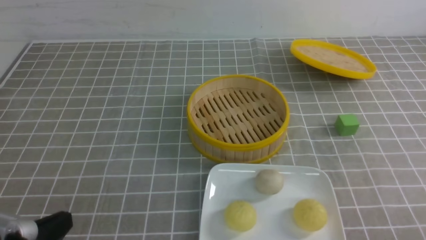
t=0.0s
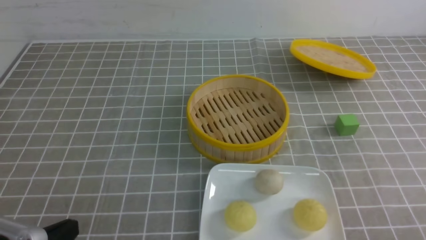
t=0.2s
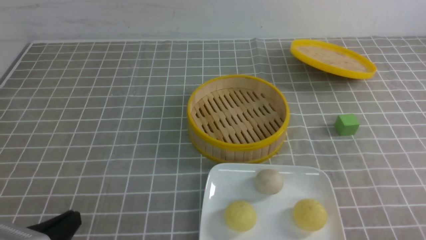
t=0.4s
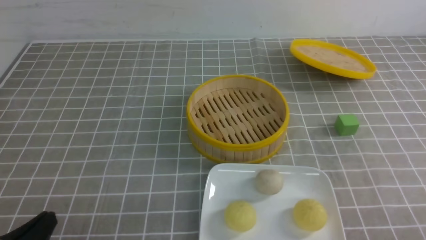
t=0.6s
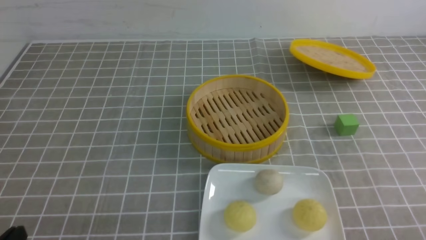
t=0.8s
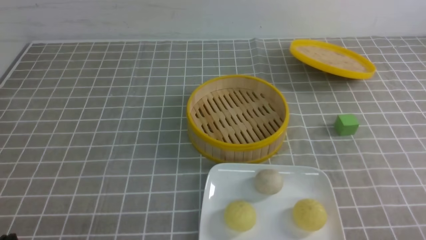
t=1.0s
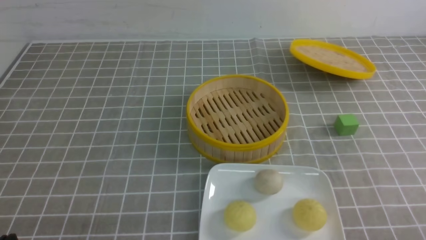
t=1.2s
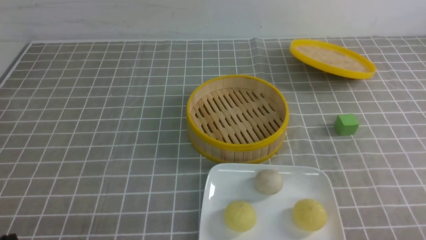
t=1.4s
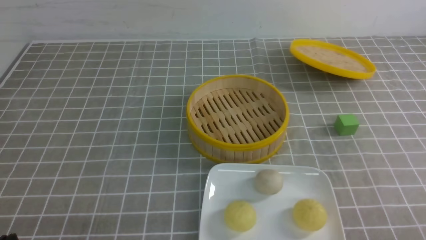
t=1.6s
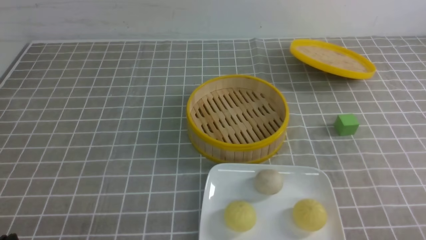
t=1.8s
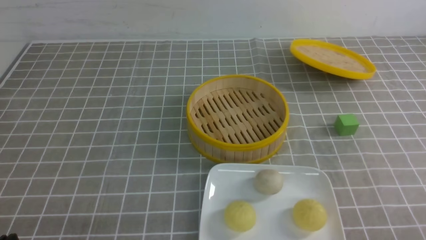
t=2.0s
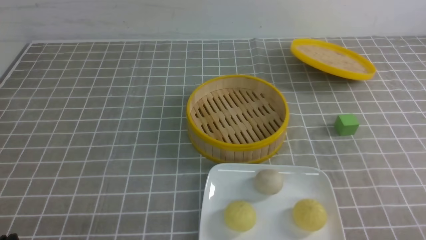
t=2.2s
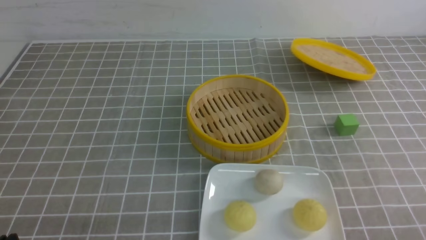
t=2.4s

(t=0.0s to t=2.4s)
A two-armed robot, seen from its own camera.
t=0.0s - t=1.2s: The left gripper goes about 5 cm downward.
t=1.2s - t=2.4s: The two grippers keep their place.

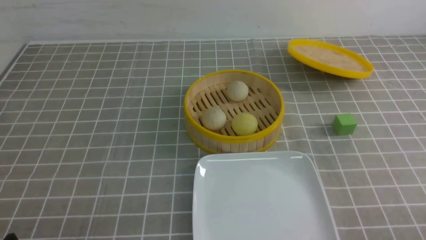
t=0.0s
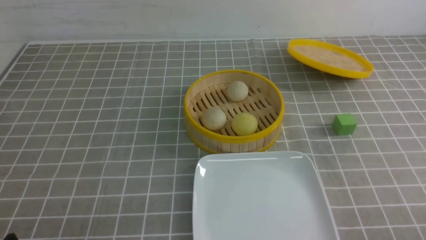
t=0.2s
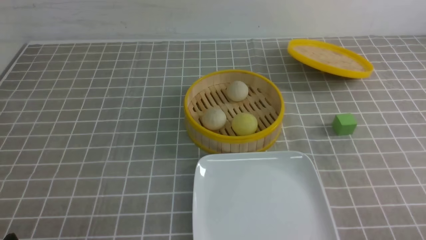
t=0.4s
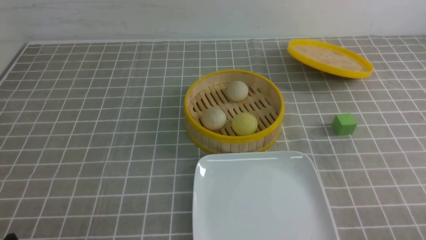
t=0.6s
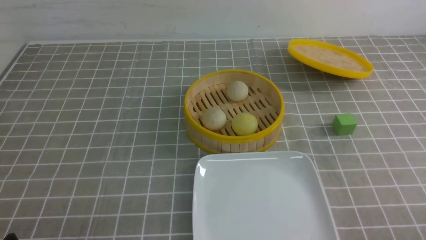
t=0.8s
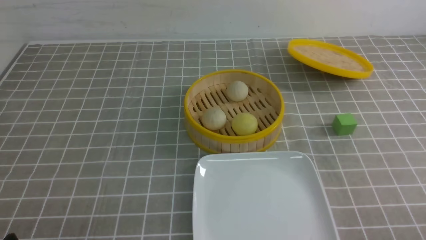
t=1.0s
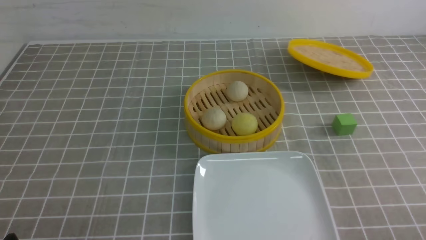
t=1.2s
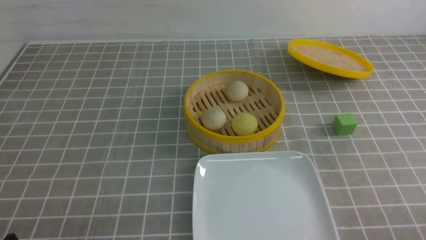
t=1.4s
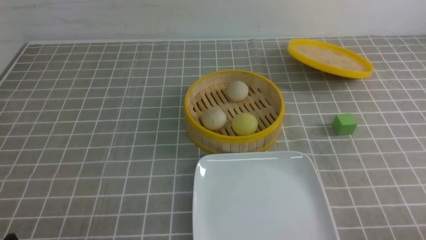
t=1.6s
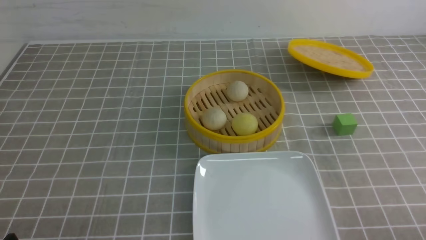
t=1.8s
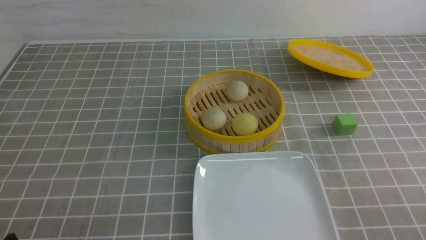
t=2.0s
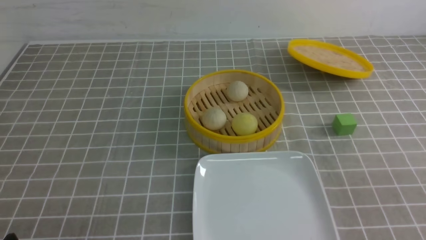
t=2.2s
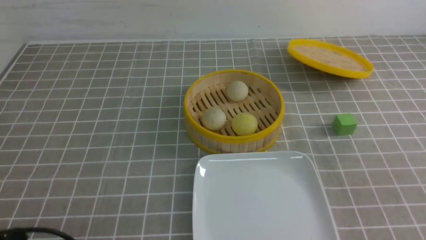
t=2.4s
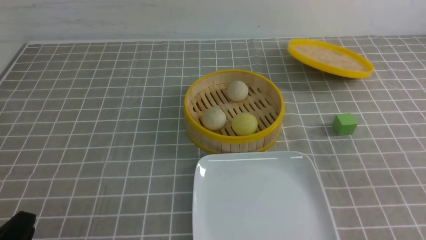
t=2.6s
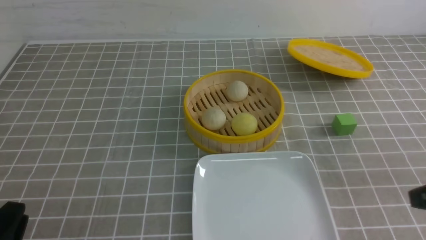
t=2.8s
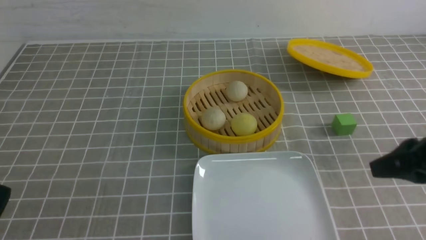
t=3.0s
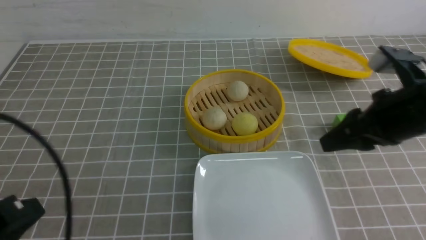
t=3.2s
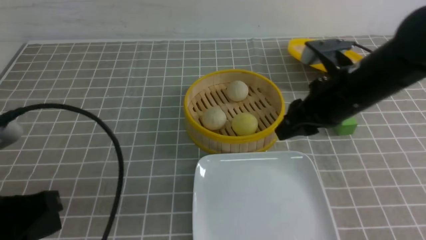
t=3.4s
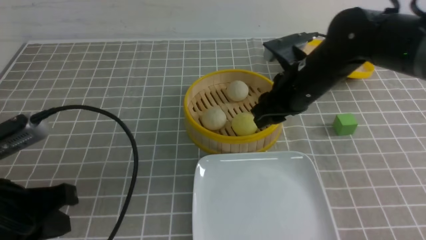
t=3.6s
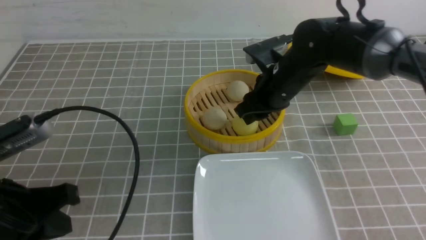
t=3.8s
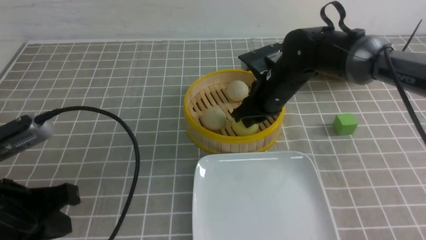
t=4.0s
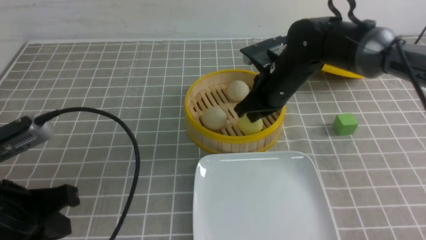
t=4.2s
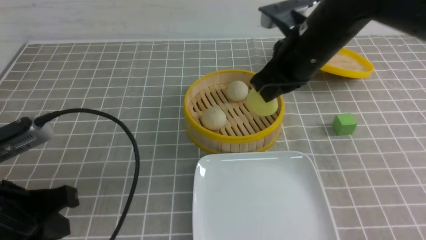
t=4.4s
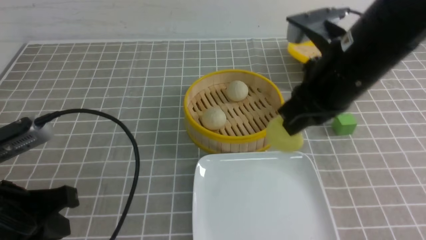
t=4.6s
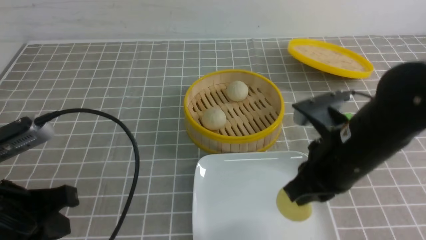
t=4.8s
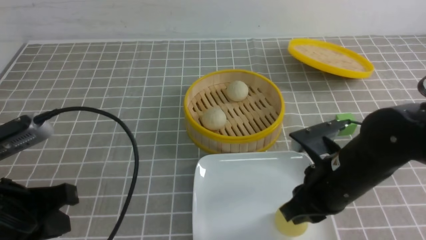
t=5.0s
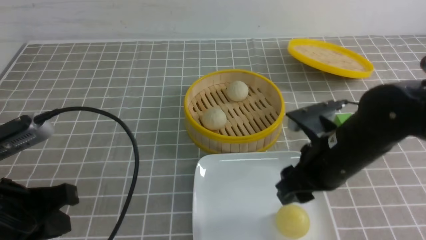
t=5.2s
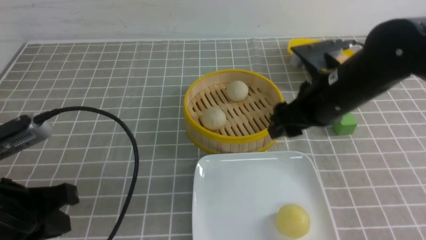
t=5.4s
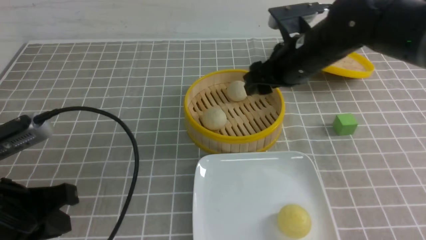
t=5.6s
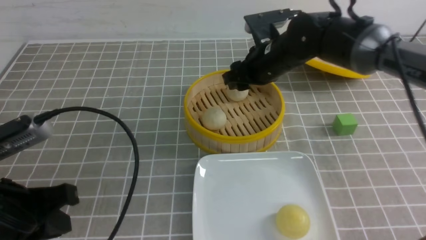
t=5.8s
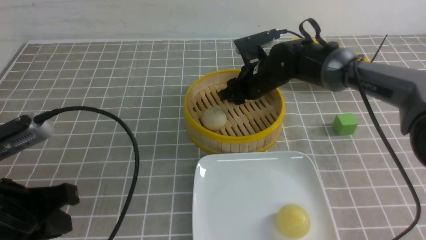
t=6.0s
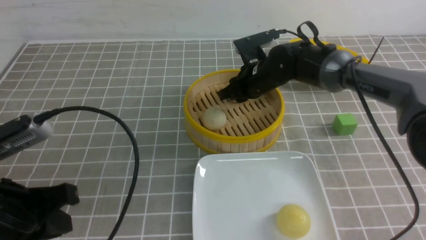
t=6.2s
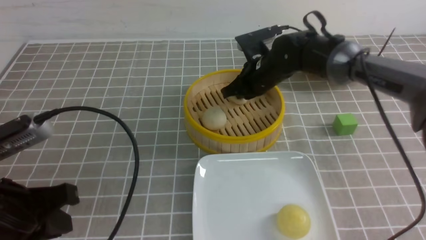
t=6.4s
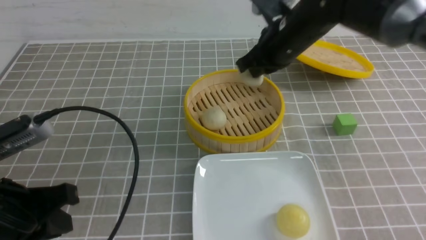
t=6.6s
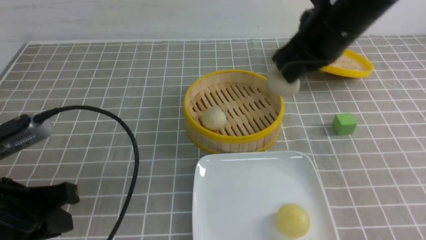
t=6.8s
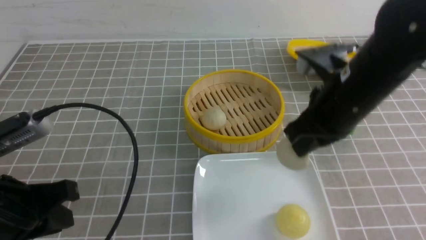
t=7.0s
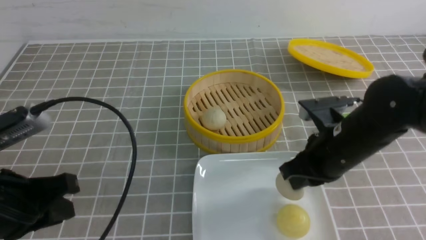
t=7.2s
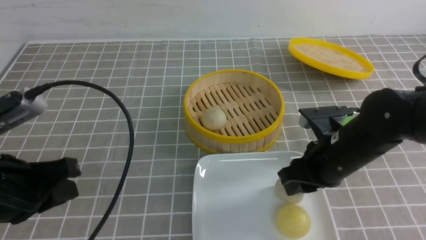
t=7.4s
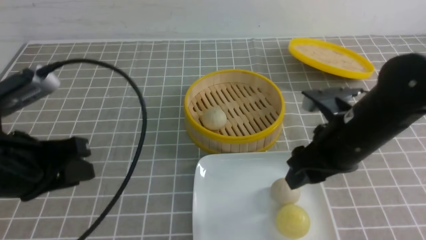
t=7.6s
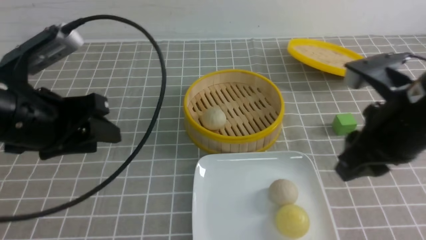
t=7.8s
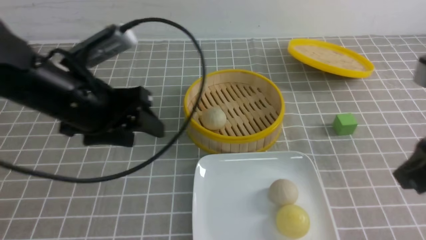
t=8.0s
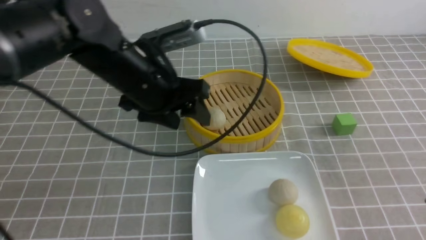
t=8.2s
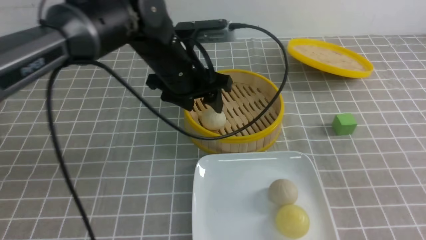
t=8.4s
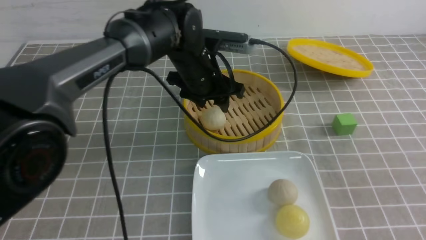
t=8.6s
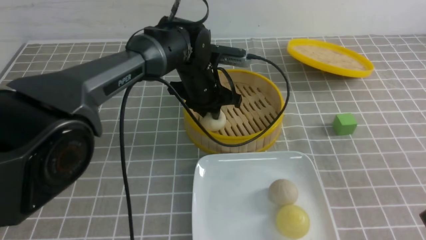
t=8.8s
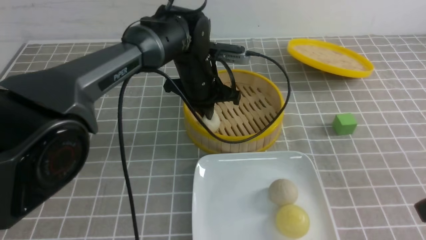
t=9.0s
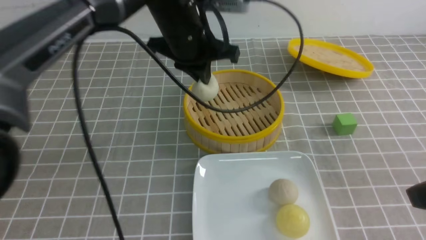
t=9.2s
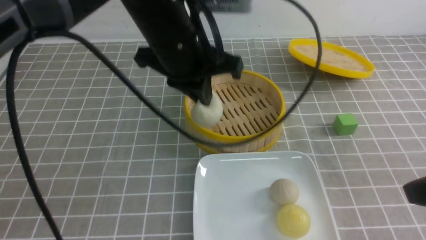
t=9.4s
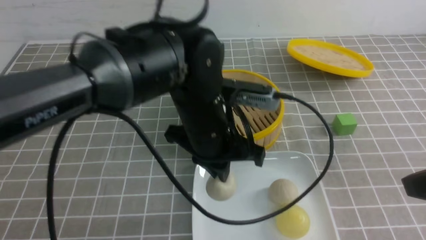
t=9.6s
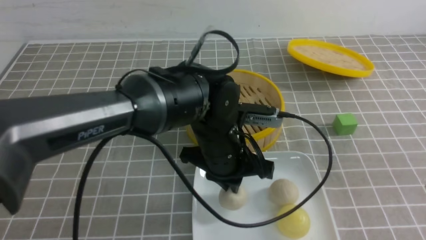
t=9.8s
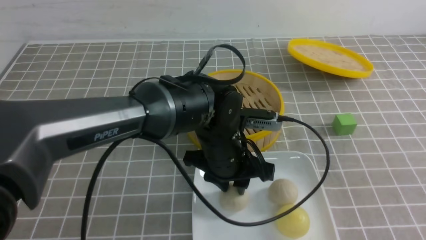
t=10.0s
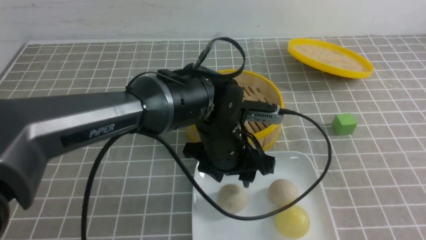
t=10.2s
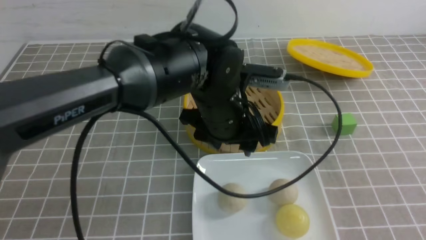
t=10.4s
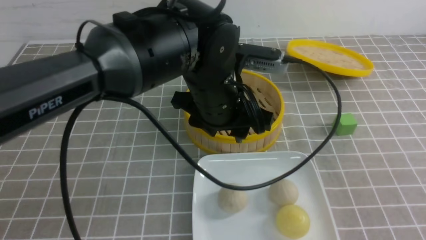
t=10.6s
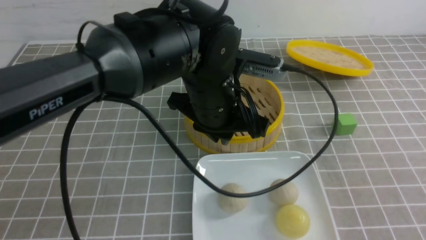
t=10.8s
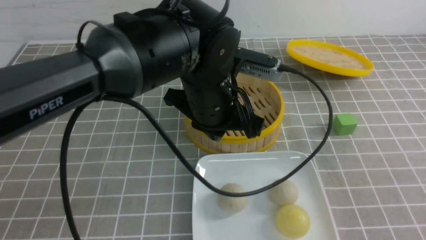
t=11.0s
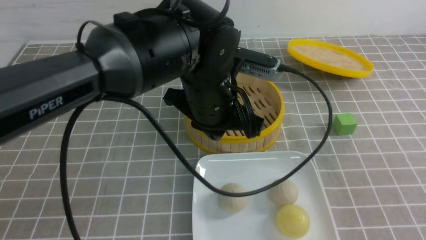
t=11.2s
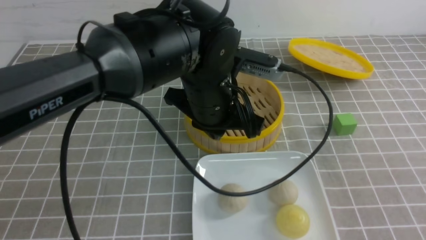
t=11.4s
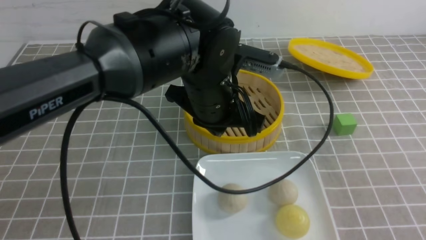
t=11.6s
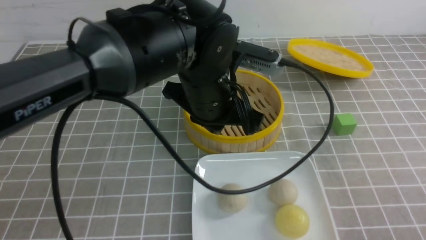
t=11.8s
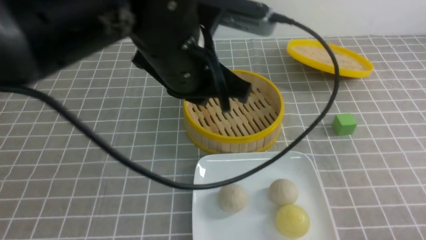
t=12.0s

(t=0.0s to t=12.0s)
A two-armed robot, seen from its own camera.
Step, t=0.0s - t=4.2s: use the right arm to grab the steamed stuffed bun that is closest to it.
Step, t=4.4s - t=5.0s: use the right arm to put the steamed stuffed bun into the plate.
Step, t=5.2s - t=6.4s: use the right arm to grab the steamed stuffed bun that is closest to it.
Step, t=6.6s - t=7.4s: use the right arm to put the steamed stuffed bun into the plate.
Step, t=7.6s - t=9.0s: use the left arm to grab the steamed stuffed bun that is closest to it.
Step, t=9.2s - t=10.0s: use the left arm to put the steamed stuffed bun into the plate.
t=1.6s - t=3.0s: The right gripper is displaced forward and upward by approximately 20 cm, and closes, then reopens.
t=3.0s - t=4.4s: The left gripper heads forward, covering approximately 10 cm; the right gripper is displaced to the left and forward by roughly 20 cm, and closes up.
t=4.4s - t=6.0s: The right gripper is displaced forward and downward by approximately 15 cm, and opens up.
t=6.0s - t=7.6s: The left gripper moves roughly 5 cm; the right gripper heads backward and to the right, covering roughly 20 cm, and closes, then opens again.
t=7.6s - t=9.0s: The left gripper heads forward and to the right, covering approximately 30 cm, and closes its fingers. The right gripper shifts some 15 cm backward, to the right and upward, and closes up.
t=9.0s - t=10.4s: The right gripper moves backward and to the right, some 10 cm. Meanwhile the left gripper shifts approximately 10 cm backward, and opens its fingers.
t=10.4s - t=12.0s: The right gripper is displaced downward by roughly 15 cm, while the left gripper moves upward and to the left, about 15 cm, and closes up.

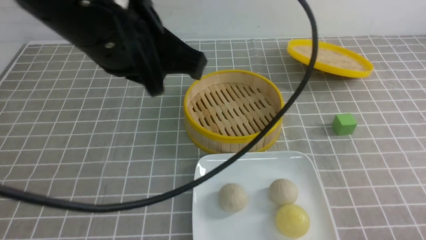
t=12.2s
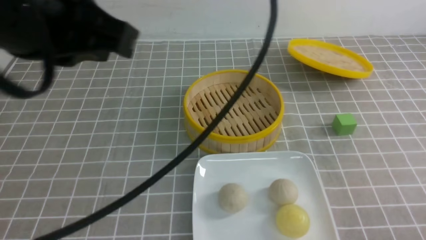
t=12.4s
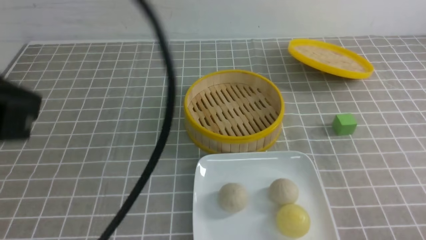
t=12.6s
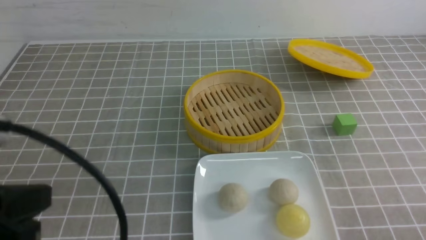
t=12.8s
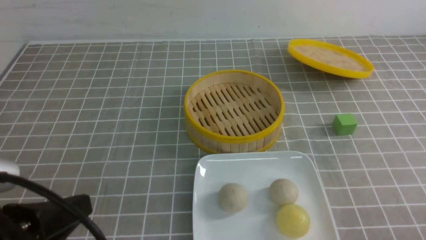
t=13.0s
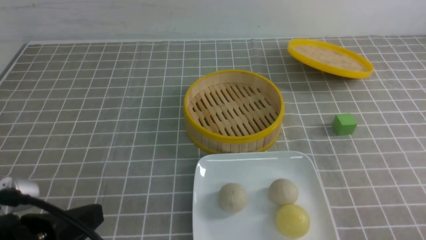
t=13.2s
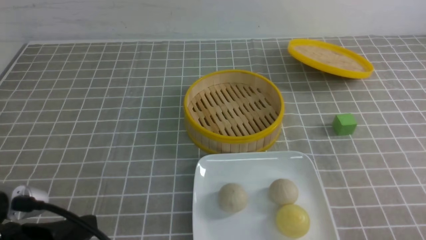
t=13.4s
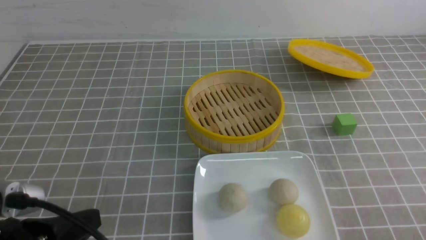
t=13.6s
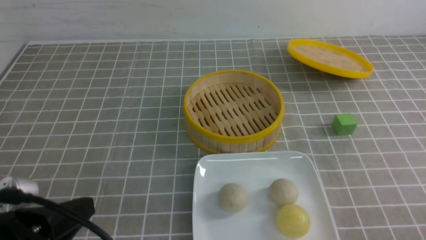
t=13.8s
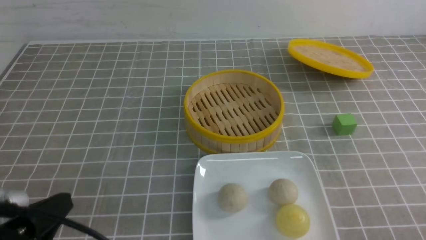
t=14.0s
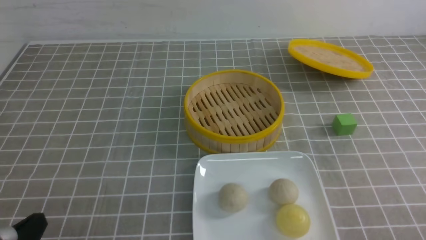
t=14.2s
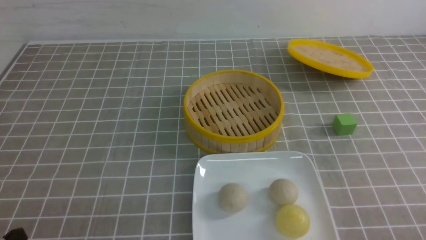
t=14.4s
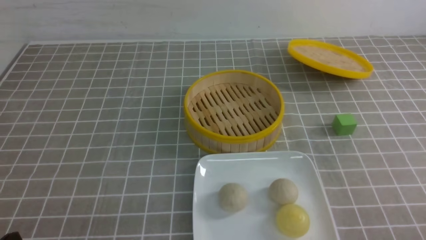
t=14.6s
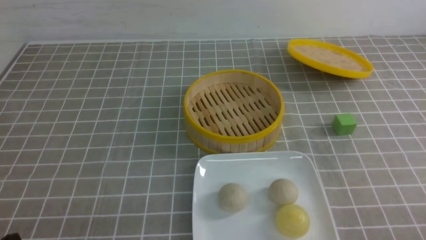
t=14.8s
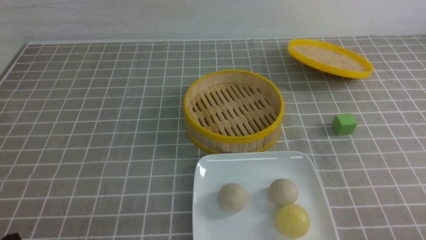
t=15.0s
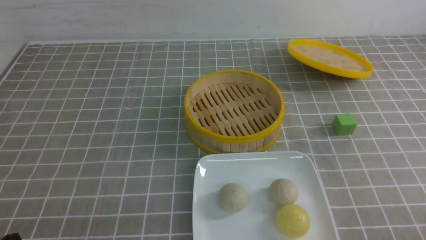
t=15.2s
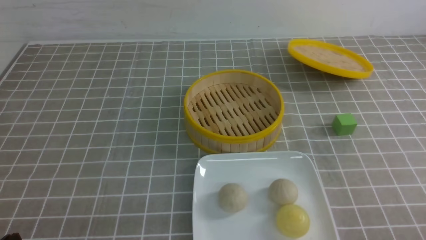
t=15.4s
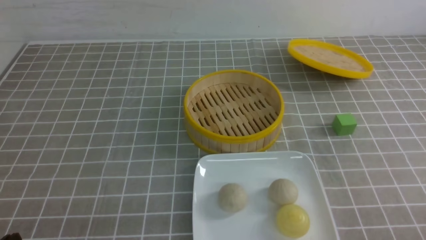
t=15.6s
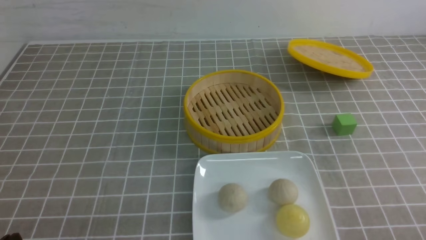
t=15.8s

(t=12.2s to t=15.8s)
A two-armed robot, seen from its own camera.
t=12.2s - t=14.0s: The left gripper shifts approximately 30 cm downward, to the left and backward.
t=14.0s - t=15.8s: The left gripper is displaced downward by about 5 cm.
